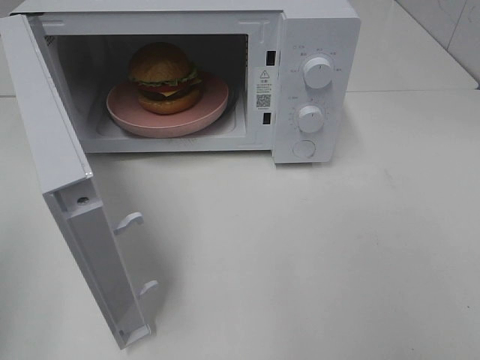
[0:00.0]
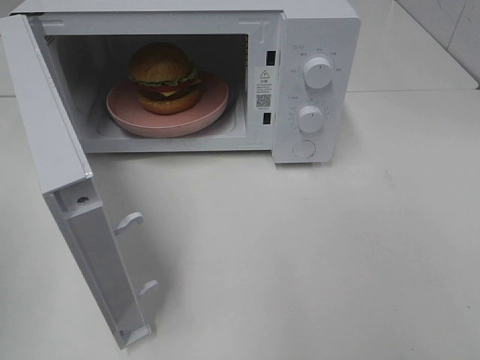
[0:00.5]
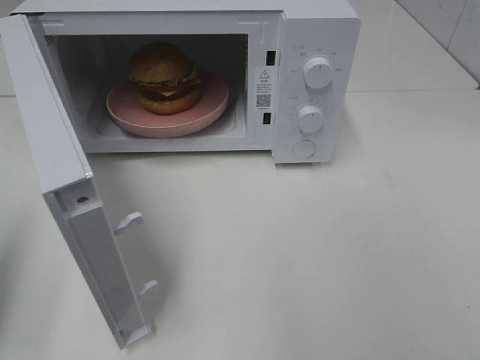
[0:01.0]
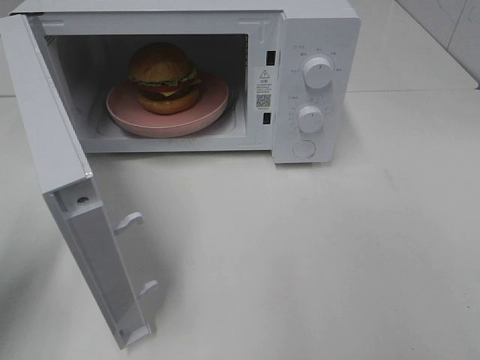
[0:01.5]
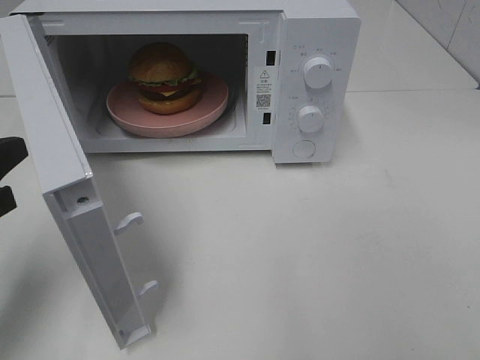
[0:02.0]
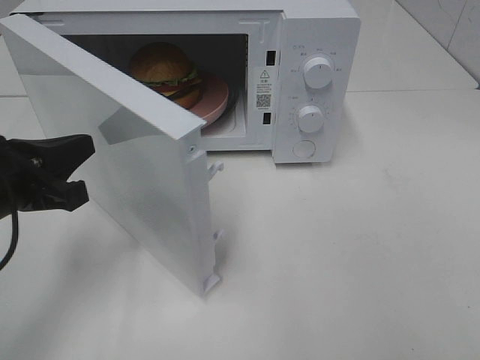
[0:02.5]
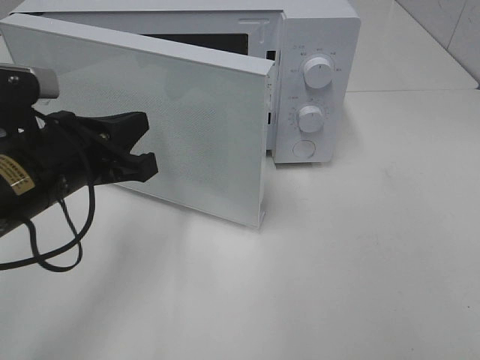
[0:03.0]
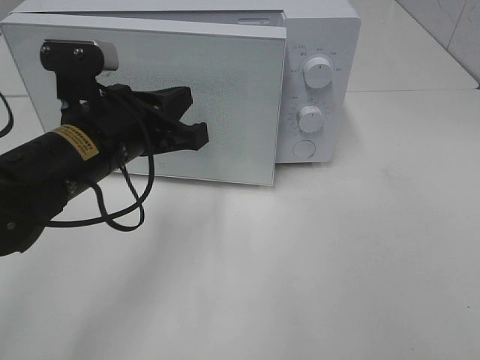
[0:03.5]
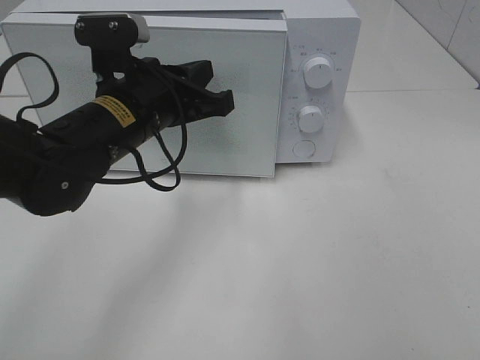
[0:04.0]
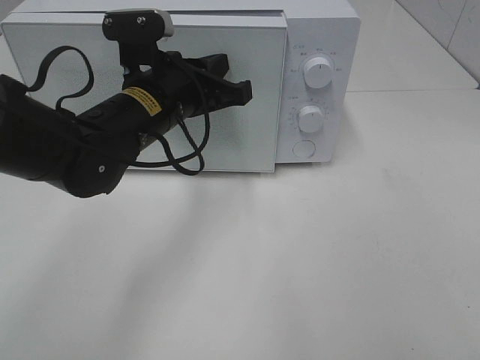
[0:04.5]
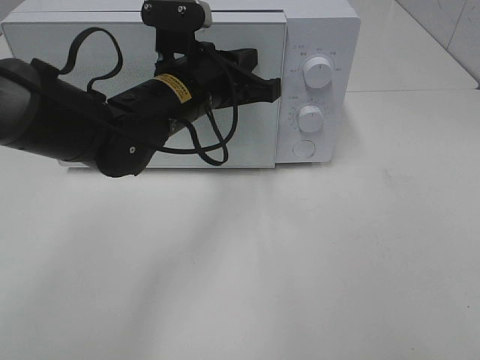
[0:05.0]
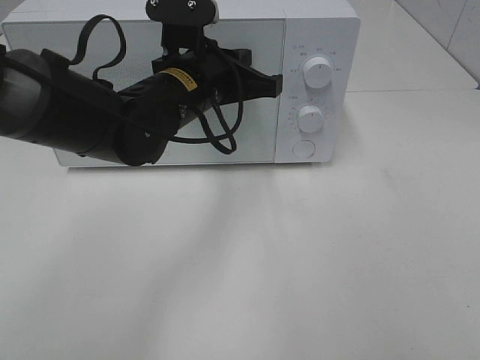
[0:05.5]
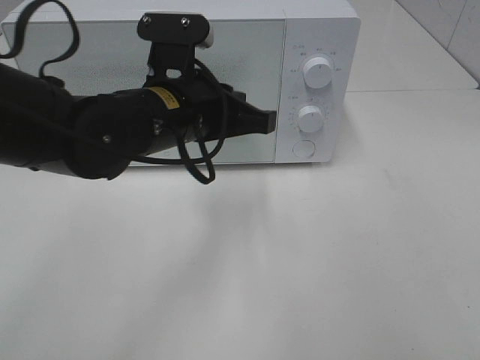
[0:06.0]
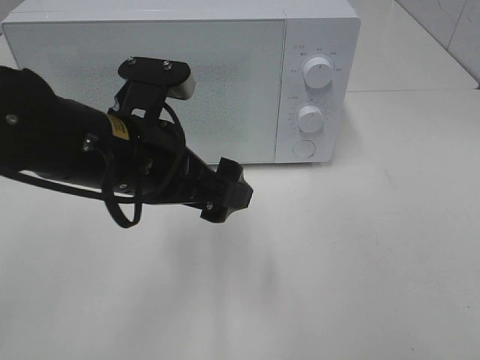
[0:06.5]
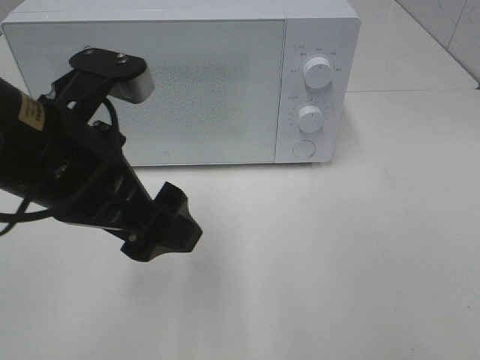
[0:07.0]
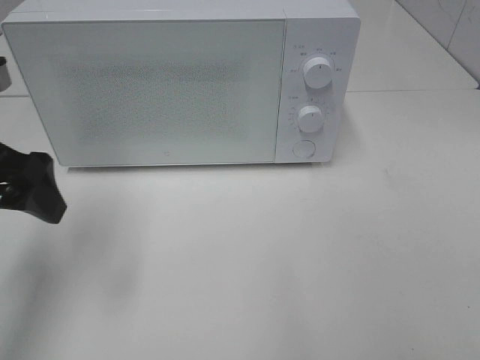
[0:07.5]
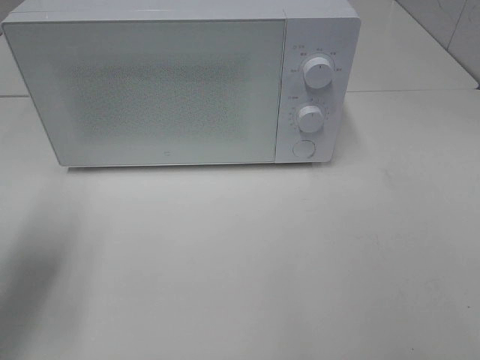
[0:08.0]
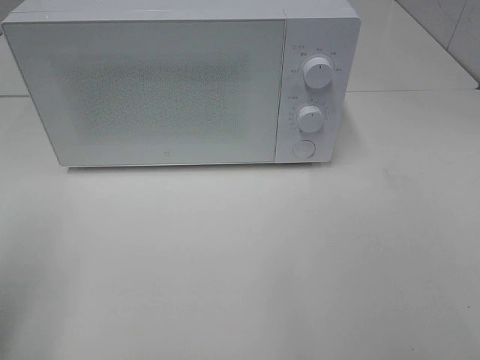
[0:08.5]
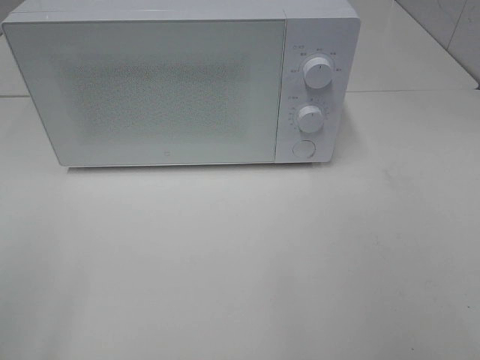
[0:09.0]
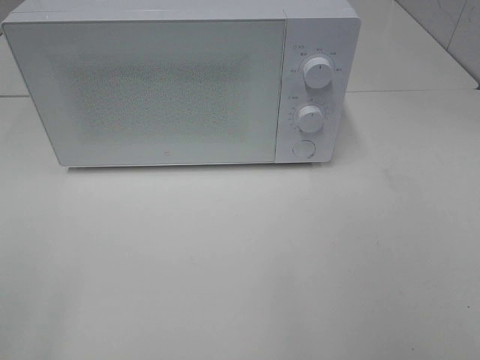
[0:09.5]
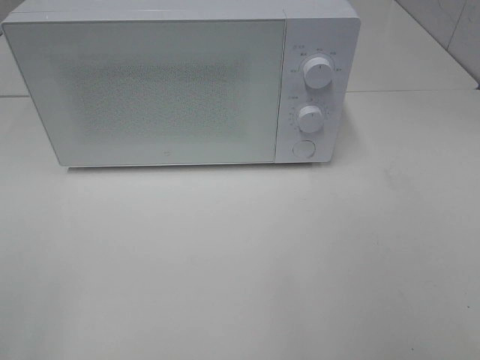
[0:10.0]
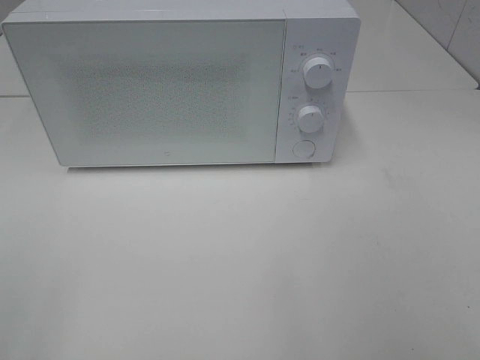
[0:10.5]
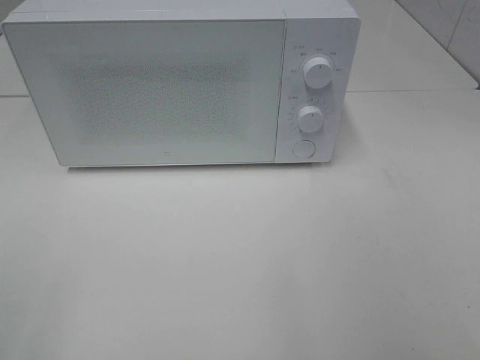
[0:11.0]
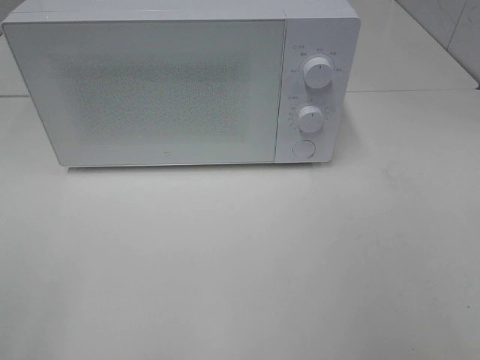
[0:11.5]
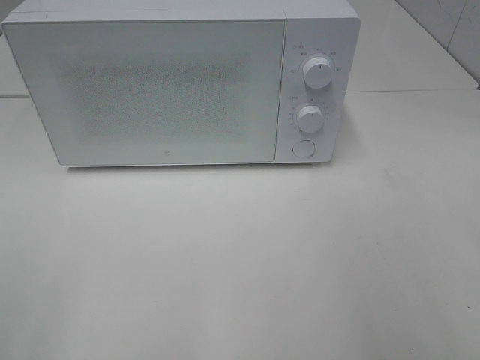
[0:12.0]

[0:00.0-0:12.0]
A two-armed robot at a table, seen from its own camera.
Task of the whole recording: Heat the burger.
Step, 0:00.0 to 0:05.5: Left hand: close the microwave door.
0:00.0 to 0:02.0: The left gripper travels forward, downward and to the right by some 15 cm.
0:02.0 to 0:04.0: The left gripper is displaced to the right and forward by roughly 20 cm.
0:06.0 to 0:08.0: The left gripper heads to the left, covering some 25 cm, and opens up.
0:08.0 to 0:10.0: The left gripper travels backward by some 20 cm.

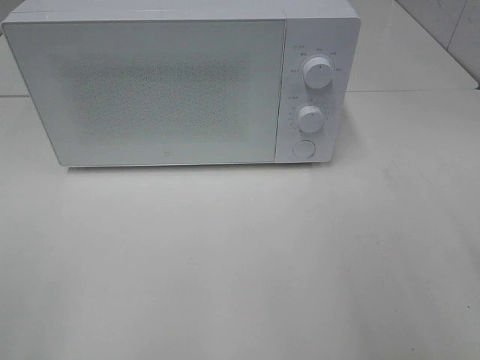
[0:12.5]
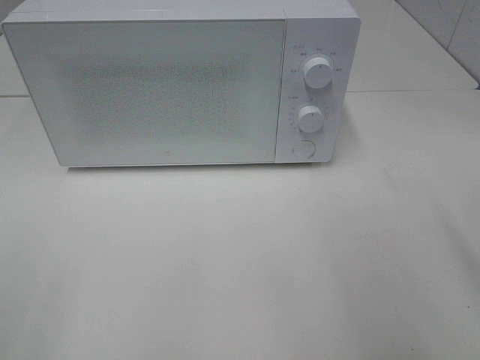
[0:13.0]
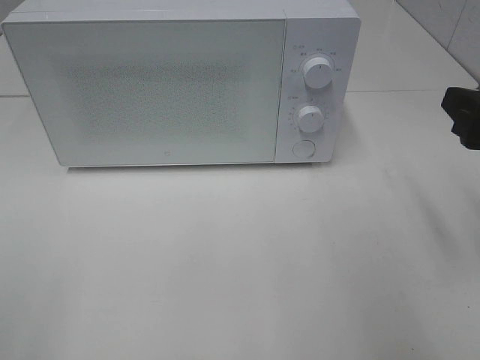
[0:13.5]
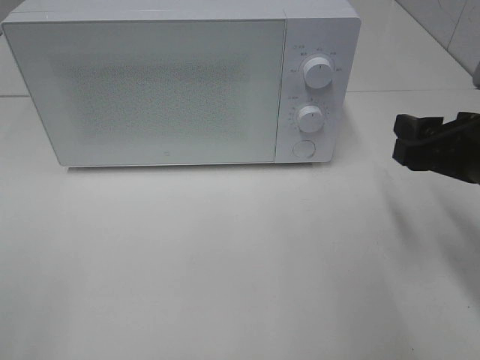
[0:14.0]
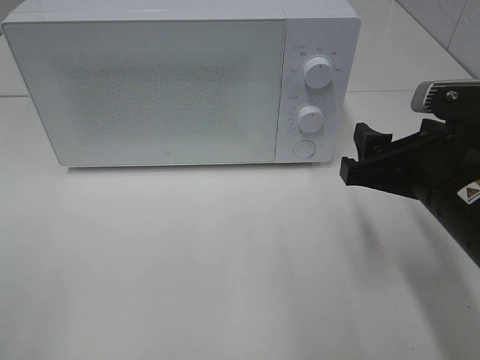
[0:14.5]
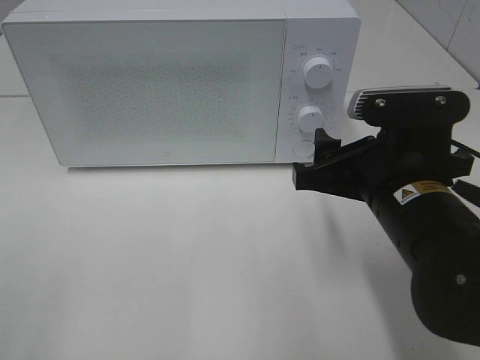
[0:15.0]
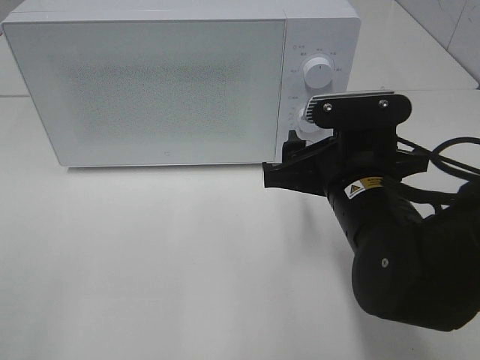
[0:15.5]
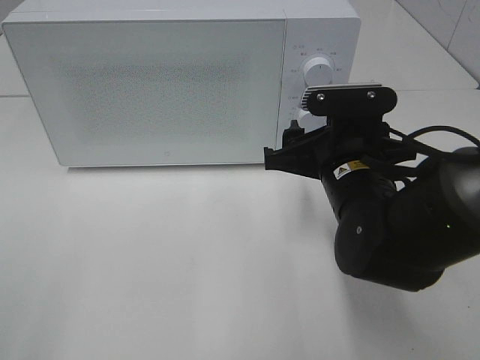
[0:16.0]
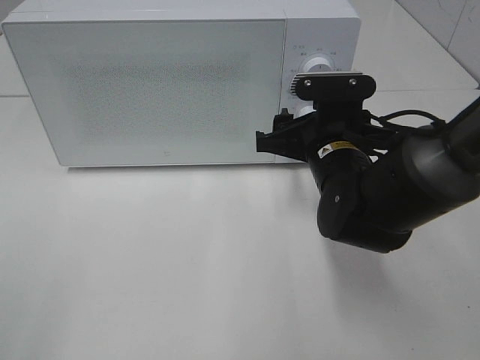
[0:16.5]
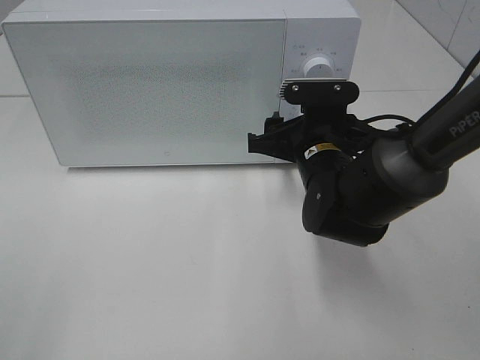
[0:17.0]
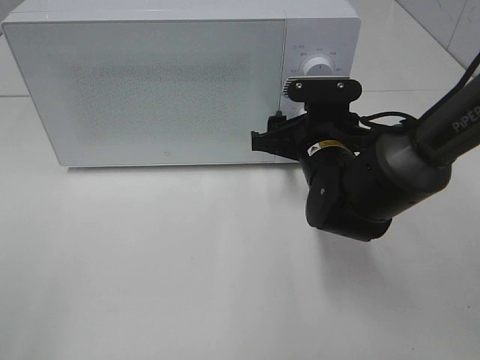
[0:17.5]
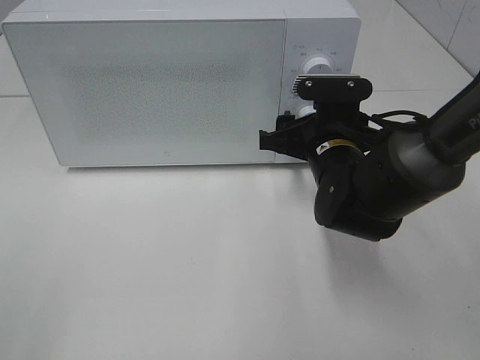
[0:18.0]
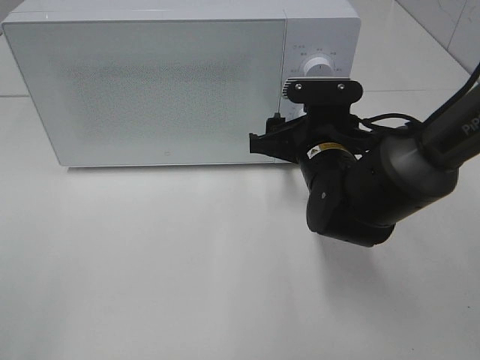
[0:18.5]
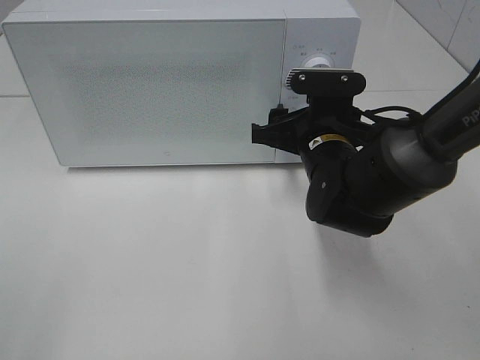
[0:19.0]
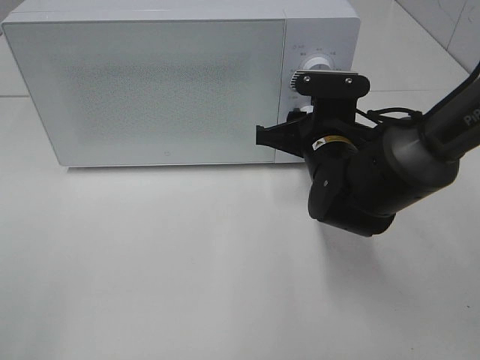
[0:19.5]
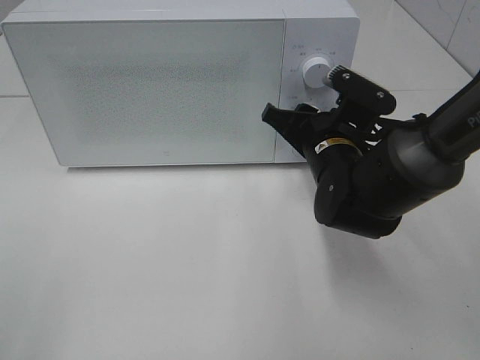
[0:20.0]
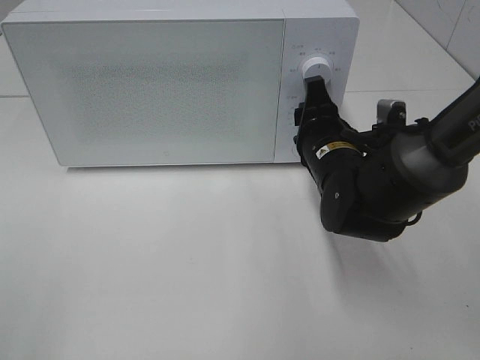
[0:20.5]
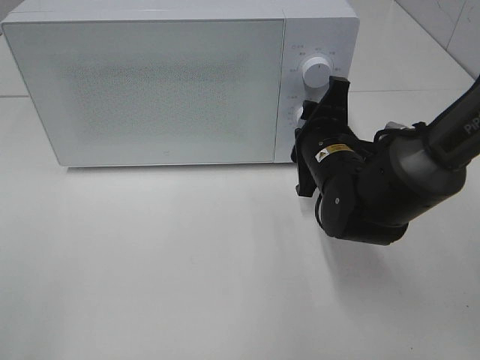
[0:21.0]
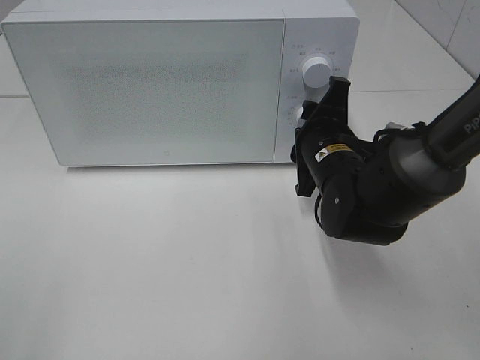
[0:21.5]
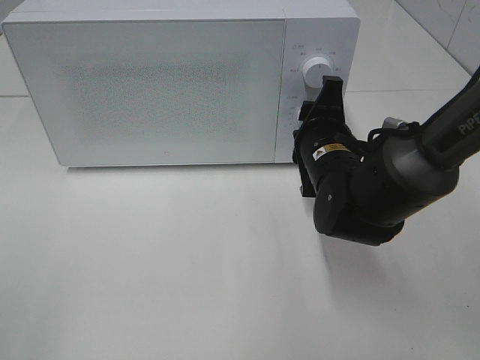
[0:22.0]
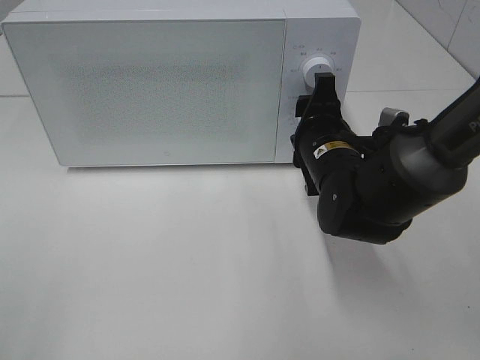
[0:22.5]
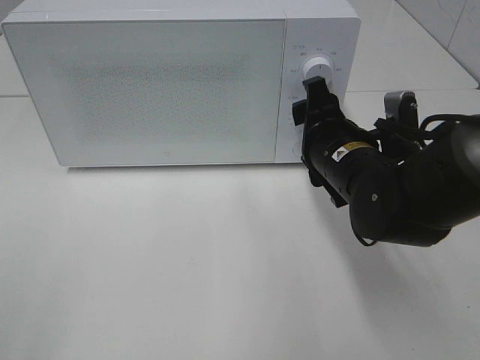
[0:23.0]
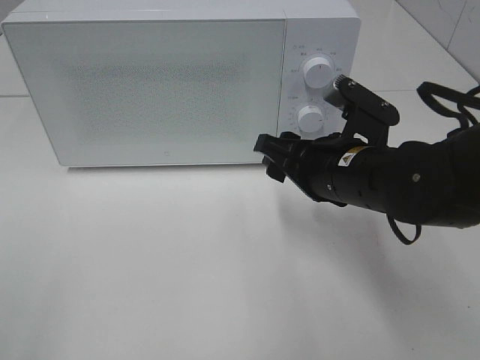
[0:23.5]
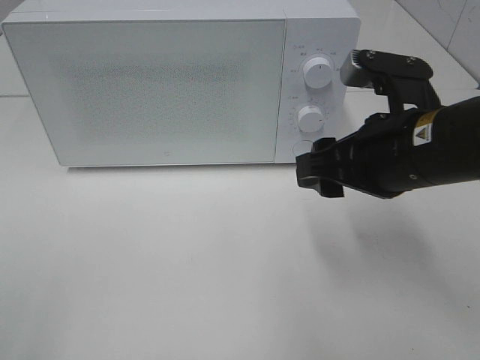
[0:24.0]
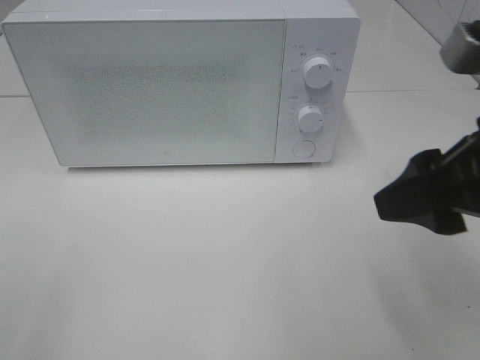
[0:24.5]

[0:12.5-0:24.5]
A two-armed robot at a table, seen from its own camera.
Task of the whole recording: Heat the burger.
Step, 0:12.5 to 0:22.5: Right hand: twist timer button.
0:12.5 to 0:14.5: The right gripper travels to the left, forward and downward by roughly 15 cm.
0:14.5 to 0:16.5: The right gripper is displaced forward and to the left by roughly 15 cm.
0:16.5 to 0:18.5: The grippers make only small movements.
0:22.5 to 0:24.5: The right gripper travels backward, upward and to the right by some 25 cm.

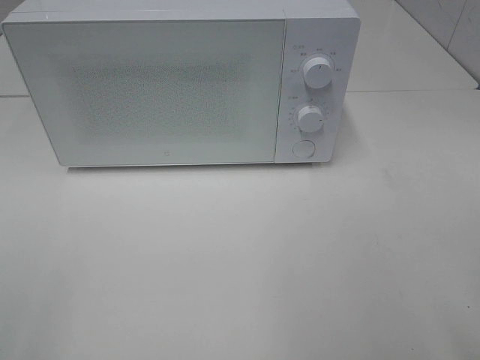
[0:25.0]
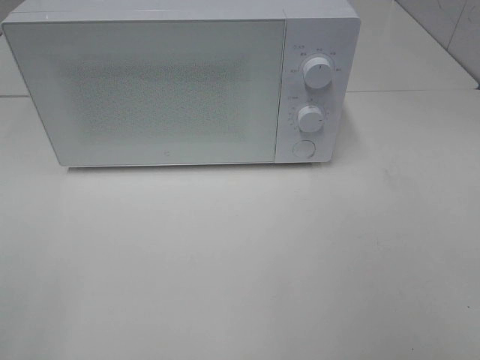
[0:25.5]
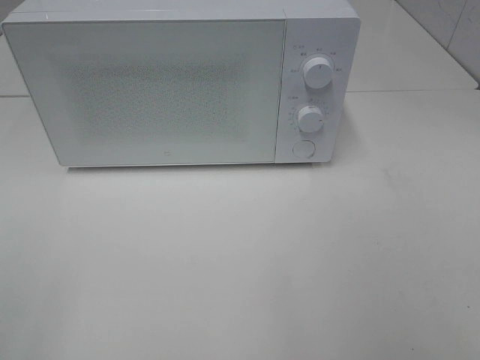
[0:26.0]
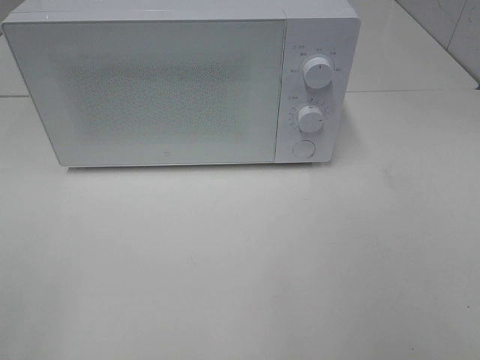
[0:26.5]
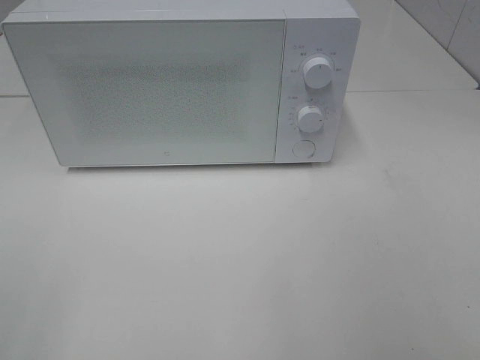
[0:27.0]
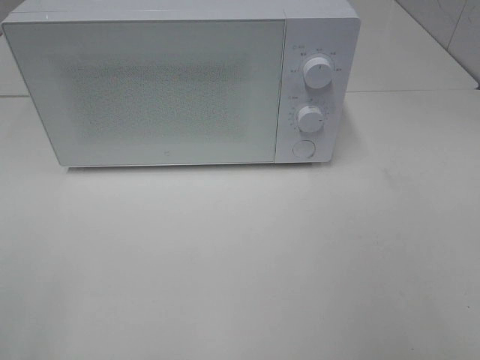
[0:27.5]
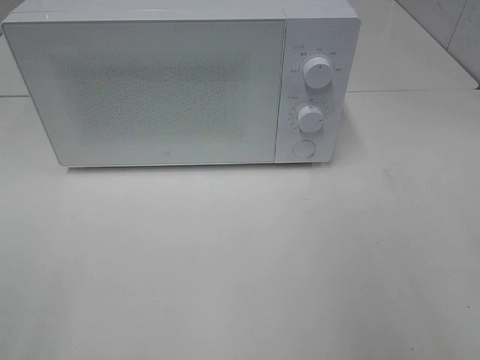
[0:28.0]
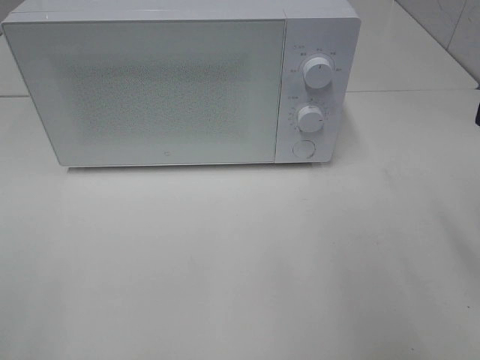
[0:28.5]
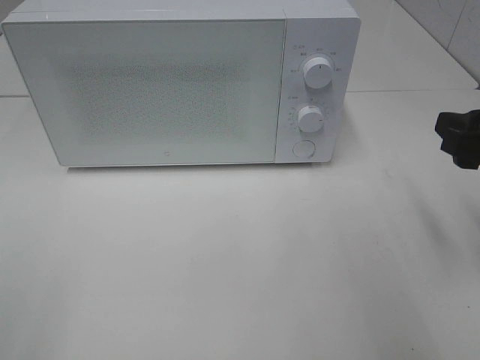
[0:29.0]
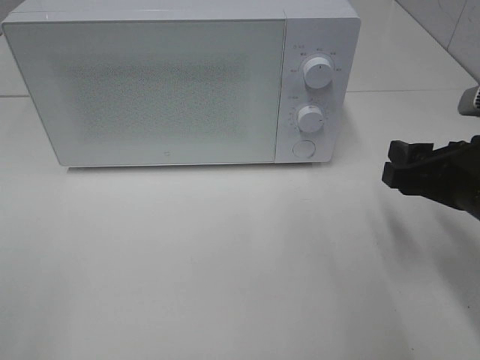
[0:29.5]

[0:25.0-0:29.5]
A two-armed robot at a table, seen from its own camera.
Task of the whole recording: Heat the burger.
0:27.0 to 0:29.5: The right gripper shifts approximately 25 cm forward and downward.
